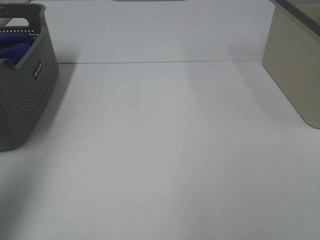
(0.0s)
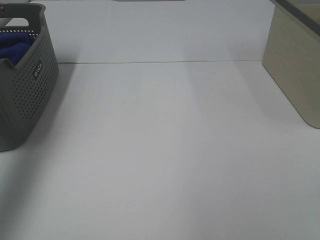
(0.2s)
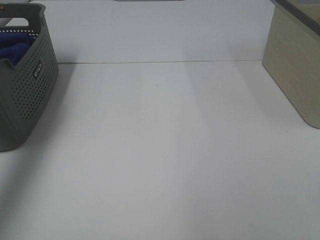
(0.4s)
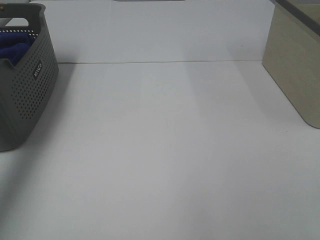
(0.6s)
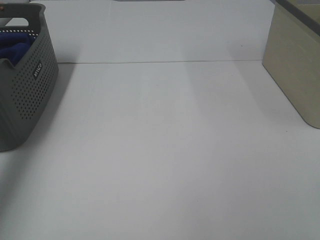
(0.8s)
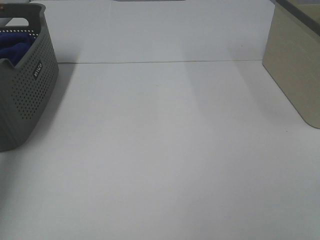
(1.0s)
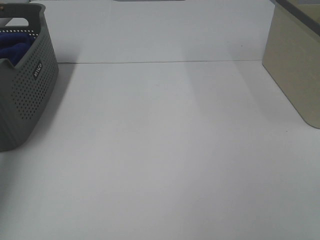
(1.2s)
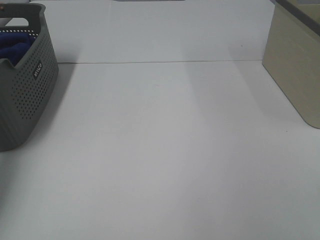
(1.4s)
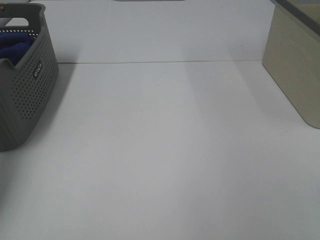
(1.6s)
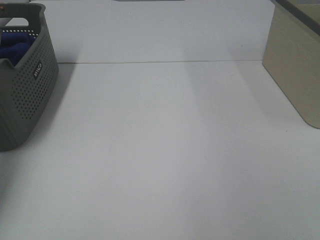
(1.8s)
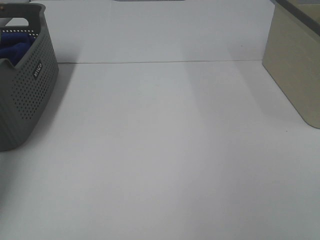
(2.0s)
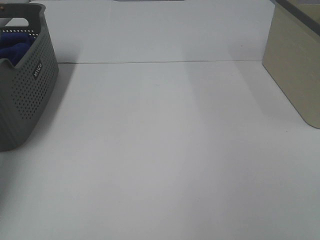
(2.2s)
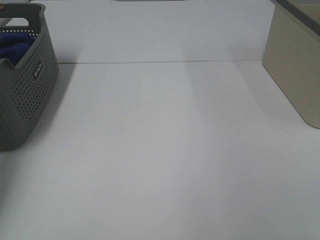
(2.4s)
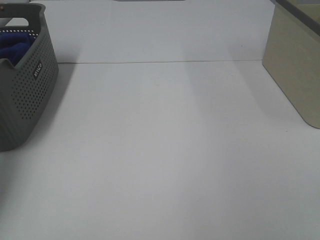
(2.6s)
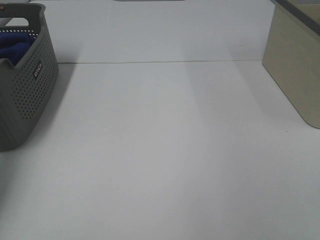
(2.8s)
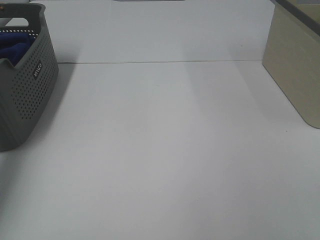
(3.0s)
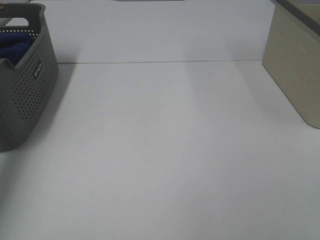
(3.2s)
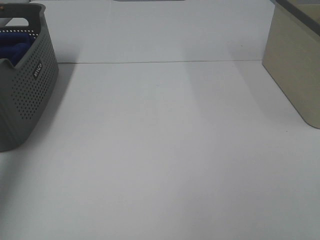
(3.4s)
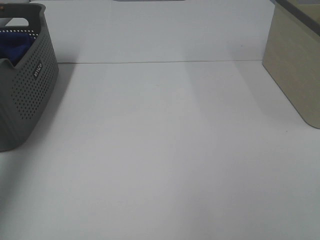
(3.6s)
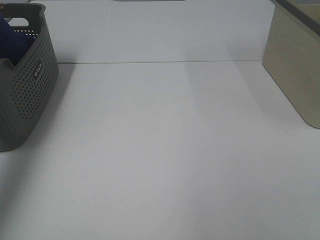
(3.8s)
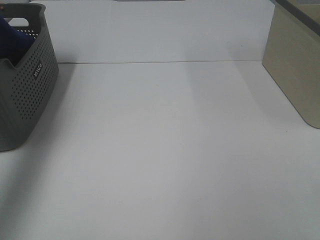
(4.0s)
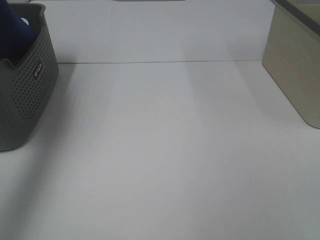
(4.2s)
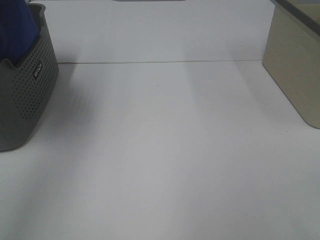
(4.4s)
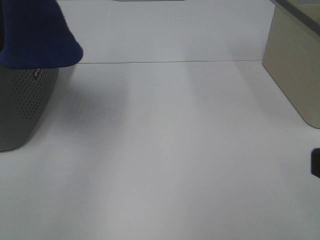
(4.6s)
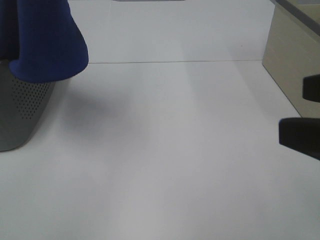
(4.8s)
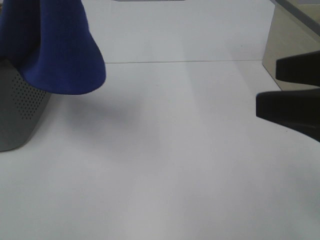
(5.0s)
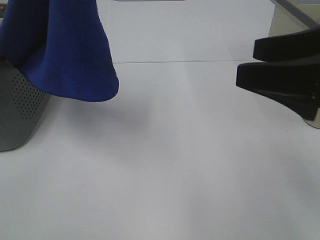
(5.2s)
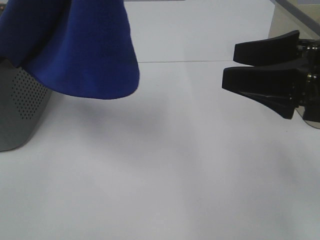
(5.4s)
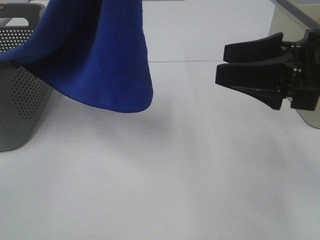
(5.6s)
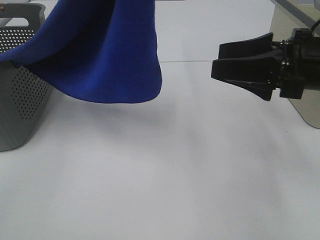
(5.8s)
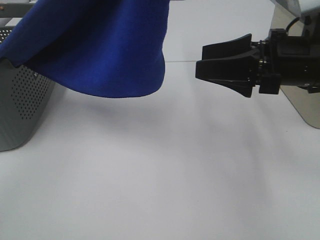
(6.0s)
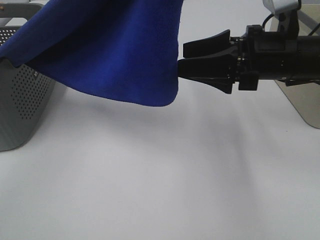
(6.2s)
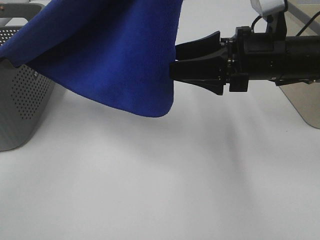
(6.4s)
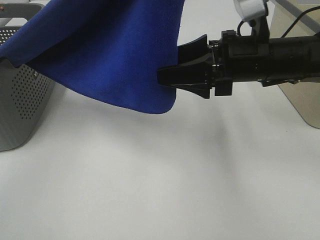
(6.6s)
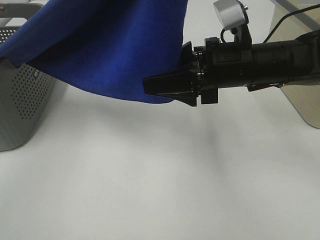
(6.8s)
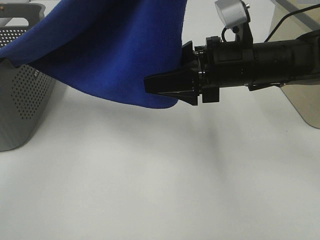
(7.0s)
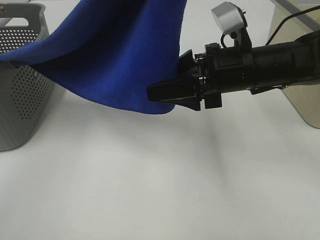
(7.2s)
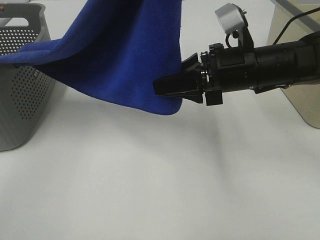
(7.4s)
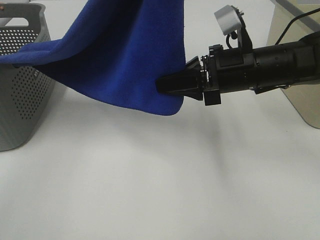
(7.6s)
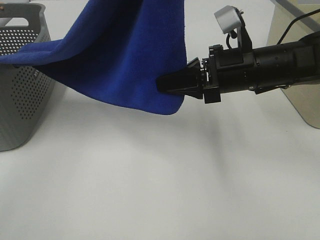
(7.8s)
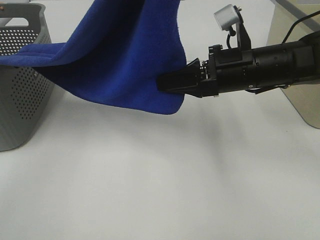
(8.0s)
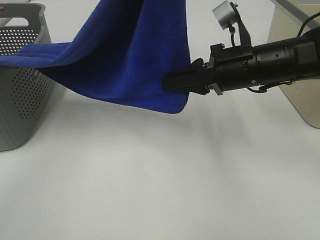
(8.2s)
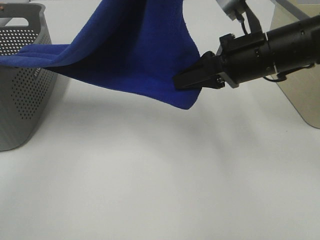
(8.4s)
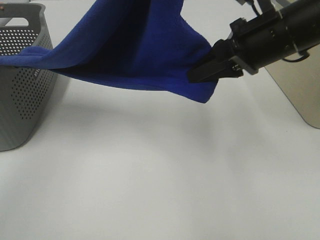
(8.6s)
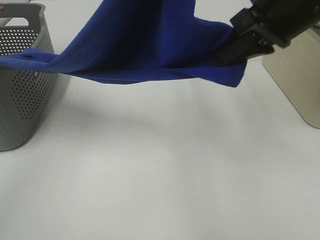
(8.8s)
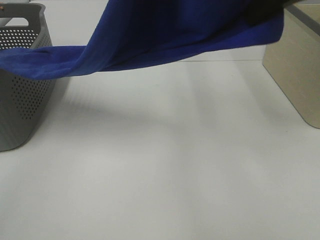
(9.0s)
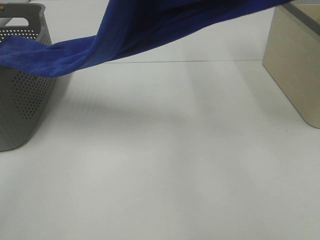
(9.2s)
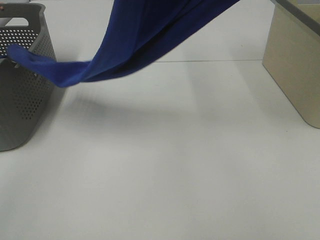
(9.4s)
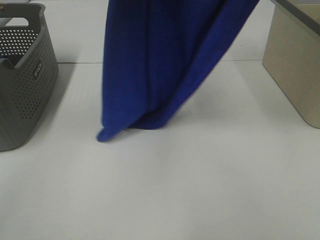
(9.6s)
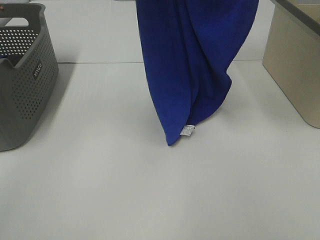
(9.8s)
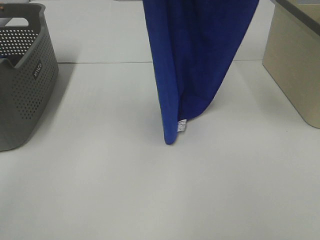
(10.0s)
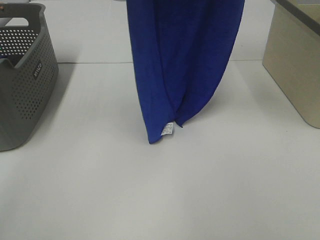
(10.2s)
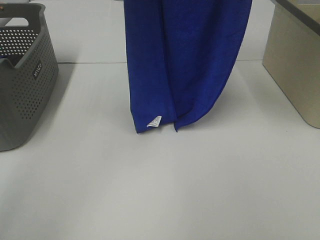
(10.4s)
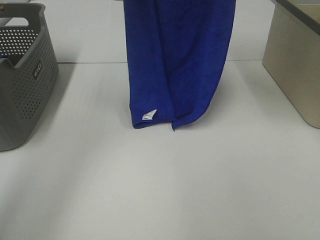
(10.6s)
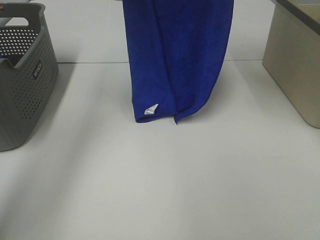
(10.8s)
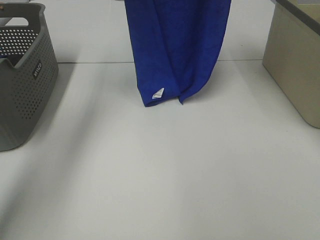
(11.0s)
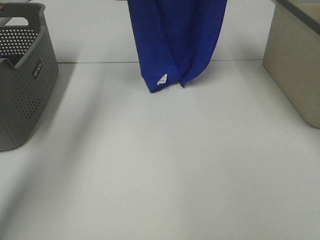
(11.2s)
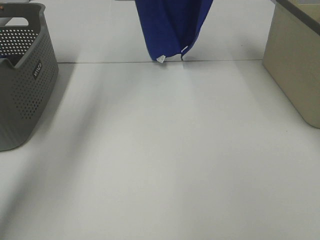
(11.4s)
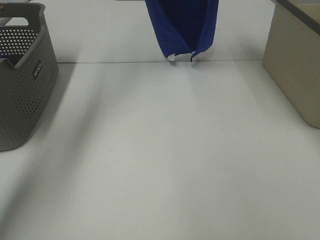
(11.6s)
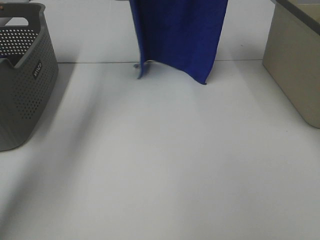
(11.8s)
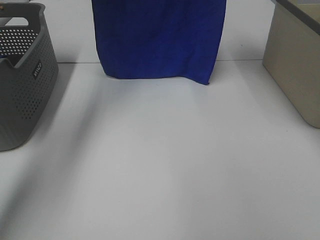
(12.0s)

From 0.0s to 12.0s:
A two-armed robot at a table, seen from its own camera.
Task of the whole recording: Remove the towel and place it.
Step, from 4.4s to 9.4s: Right hand: grab a corner of the blue towel and straighten it.
From 0.0s to 1.6s: The left gripper heads forward and downward, covering some 35 cm.
From 3.0s to 4.4s: The left gripper goes about 35 cm upward, backward and to the right.
From 4.4s to 6.0s: The left gripper moves to the right, about 20 cm, while the right gripper shifts approximately 25 cm forward.
From 6.0s to 7.6s: The right gripper heads to the left, covering about 5 cm, and closes up.
From 7.6s to 9.0s: The right gripper shifts approximately 20 cm upward.
From 9.0s to 10.4s: The left gripper shifts roughly 10 cm forward and to the left; the right gripper is displaced upward and forward by some 10 cm.
From 10.4s to 12.0s: The two grippers go some 10 cm forward.

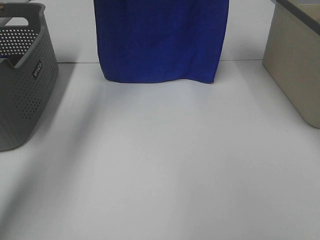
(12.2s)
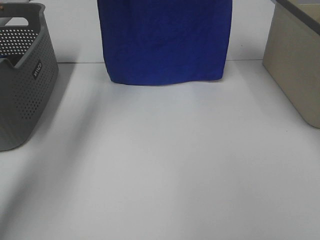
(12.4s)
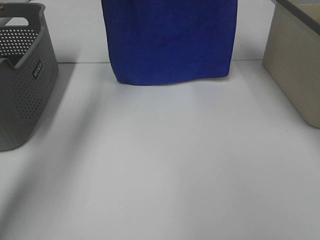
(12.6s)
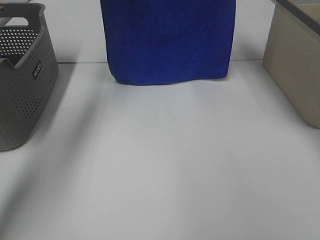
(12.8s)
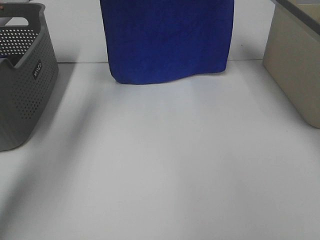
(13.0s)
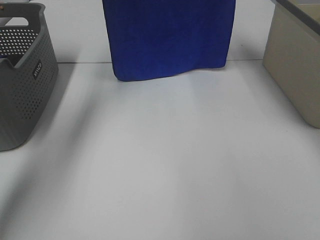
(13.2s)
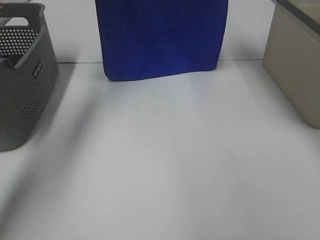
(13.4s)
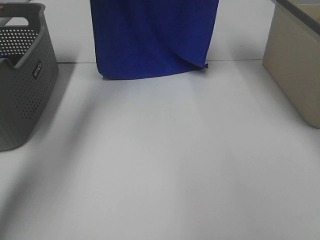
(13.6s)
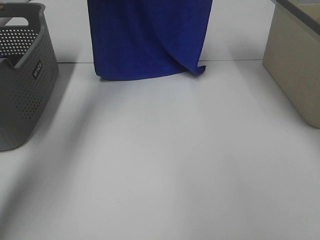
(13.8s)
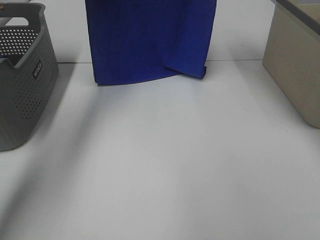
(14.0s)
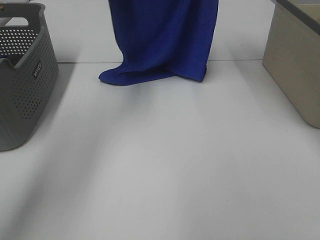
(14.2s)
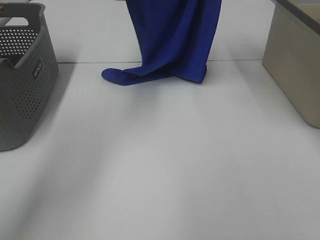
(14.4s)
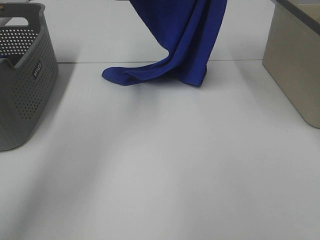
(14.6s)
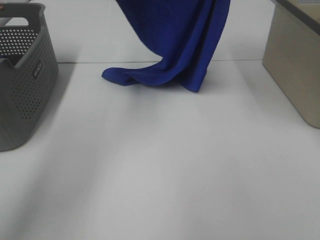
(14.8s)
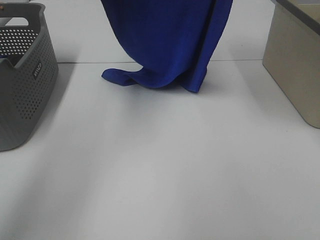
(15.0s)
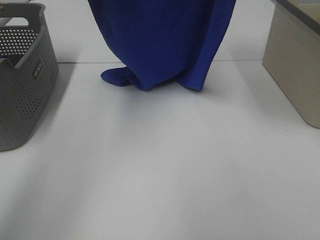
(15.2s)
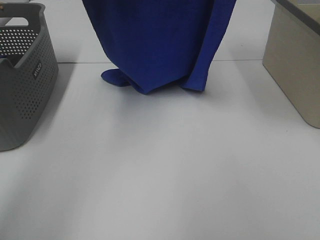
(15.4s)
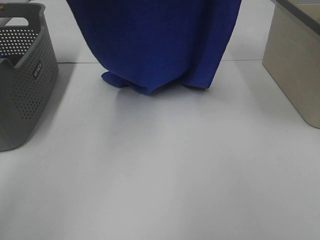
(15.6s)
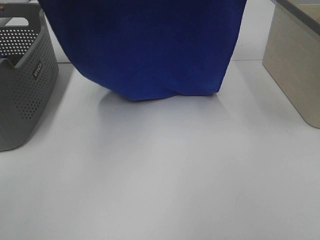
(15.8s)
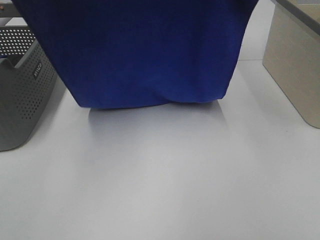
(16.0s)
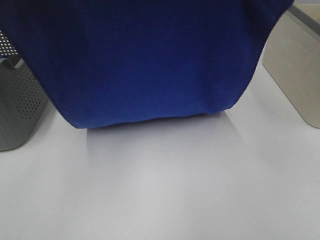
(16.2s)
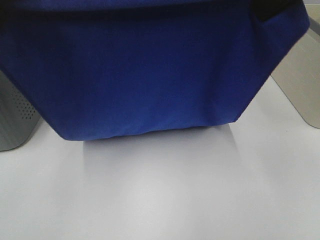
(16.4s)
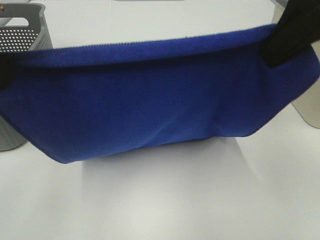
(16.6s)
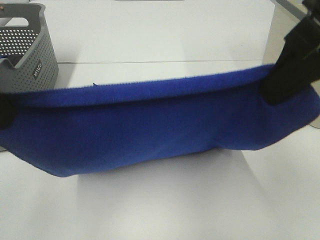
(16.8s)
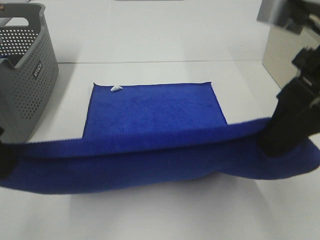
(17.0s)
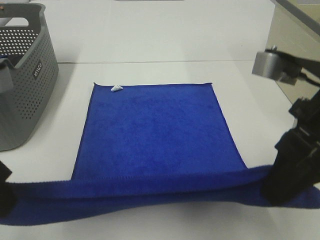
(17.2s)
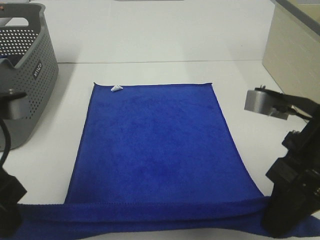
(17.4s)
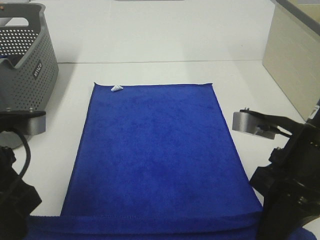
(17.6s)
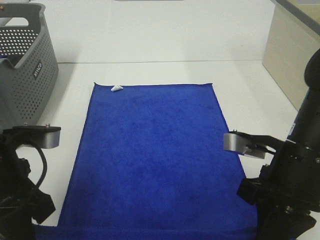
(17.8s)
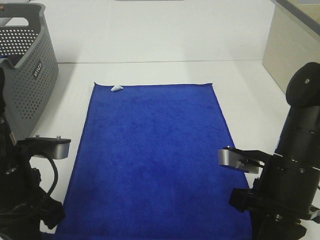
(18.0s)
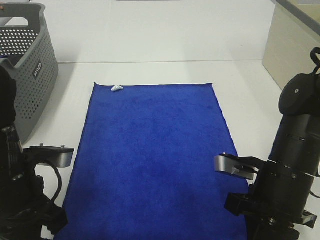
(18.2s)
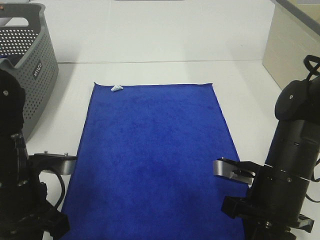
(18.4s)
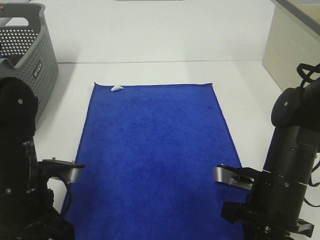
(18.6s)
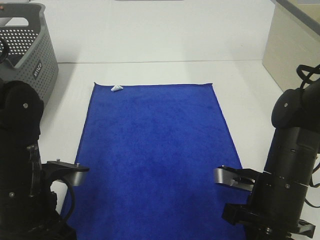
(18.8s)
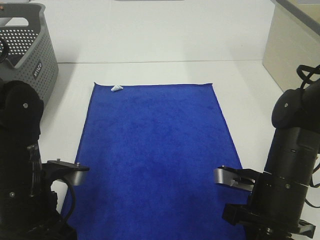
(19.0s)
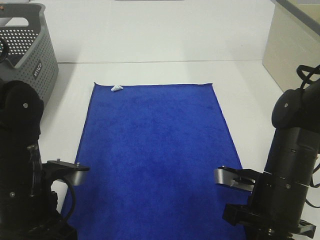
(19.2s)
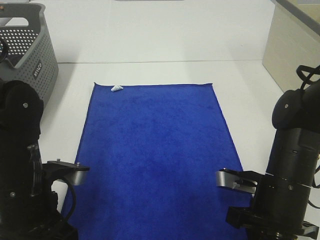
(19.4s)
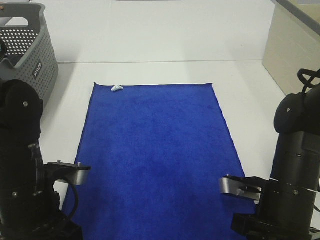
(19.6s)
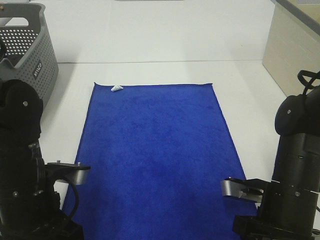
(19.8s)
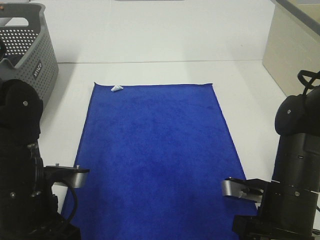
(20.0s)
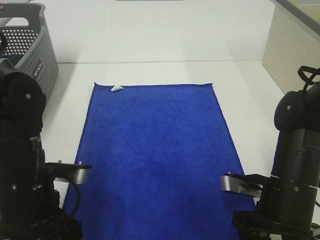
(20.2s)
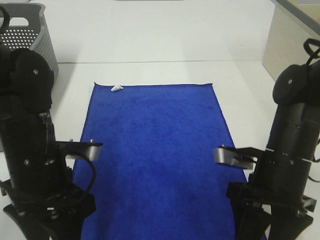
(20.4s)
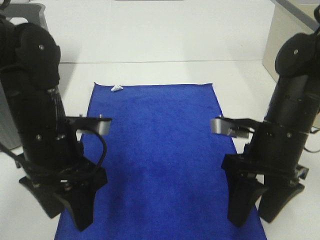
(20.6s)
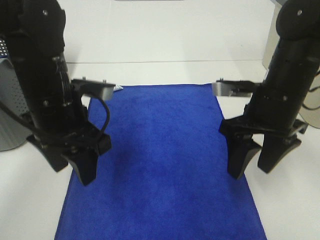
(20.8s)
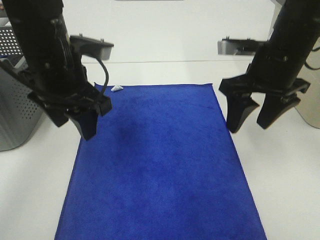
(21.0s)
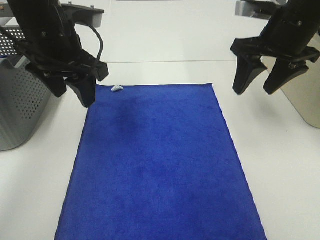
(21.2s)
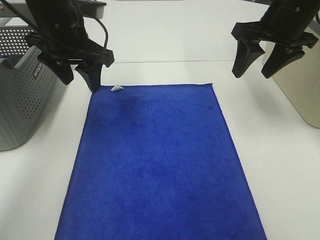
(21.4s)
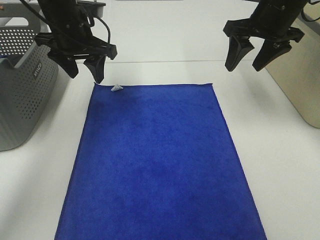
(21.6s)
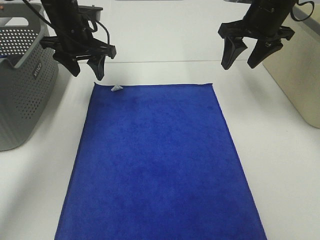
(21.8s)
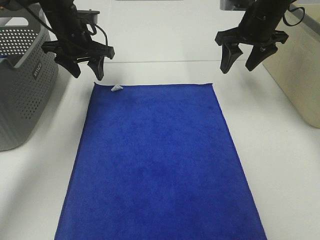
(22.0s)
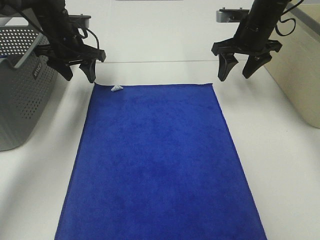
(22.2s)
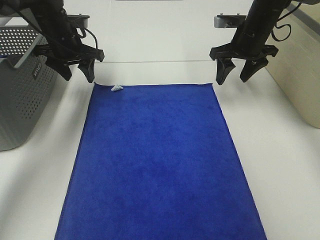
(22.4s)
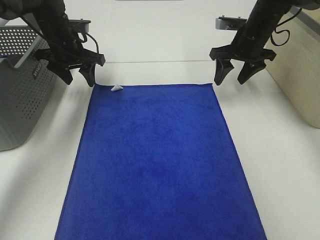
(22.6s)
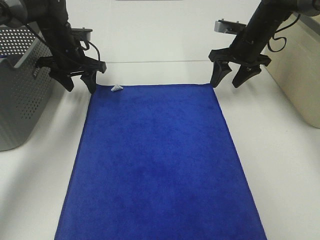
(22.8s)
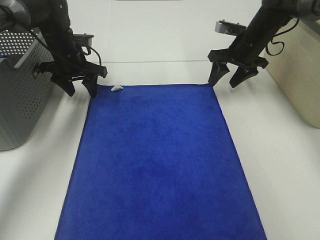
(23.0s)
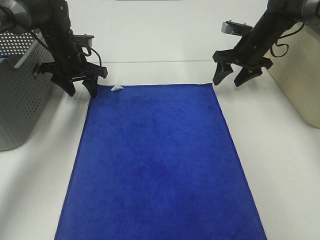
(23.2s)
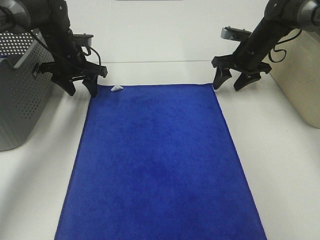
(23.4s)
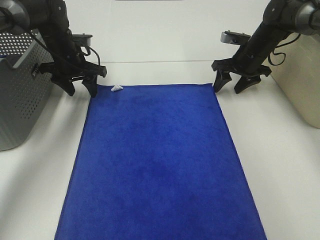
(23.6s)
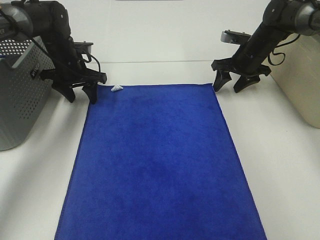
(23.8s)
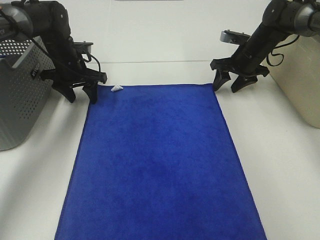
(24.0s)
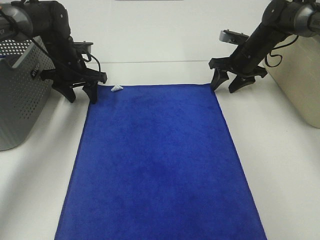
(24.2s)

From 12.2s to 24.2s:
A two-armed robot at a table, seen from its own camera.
Task of the whole recording: Remove the towel and place it.
Step, from 12.2s to 15.2s: Left hand: spread the blue towel flat on the table.
Step, from 12.2s to 15.2s: Right hand: spread the blue towel flat on the table.
Step, from 15.4s to 23.6s: Left hand:adjust the blue towel.
Step, from 15.4s to 23.6s: Right hand:adjust the blue towel.
From 12.2s to 13.8s: The grippers move only a little.
From 13.8s to 15.2s: The two grippers go about 10 cm backward.
From 15.2s to 16.6s: The grippers both shift backward and downward by roughly 20 cm.
From 16.6s to 18.2s: The two grippers go about 25 cm downward.
From 18.2s to 19.8s: The right gripper opens, while the left gripper opens up.
From 19.8s to 21.2s: The left gripper shifts some 20 cm forward and upward, while the right gripper travels upward and forward by approximately 25 cm.
From 21.2s to 22.6s: The two grippers go approximately 20 cm forward and downward.
From 22.6s to 24.2s: The two grippers go some 5 cm downward.
